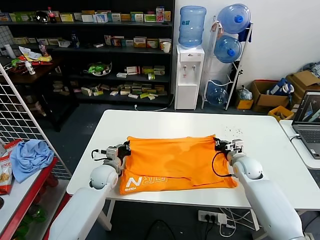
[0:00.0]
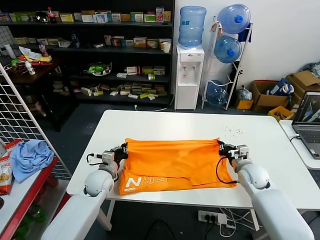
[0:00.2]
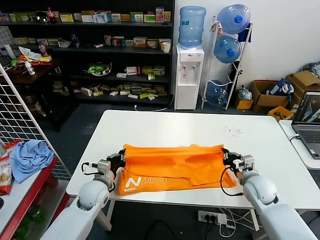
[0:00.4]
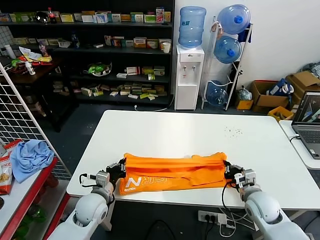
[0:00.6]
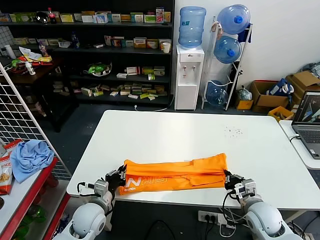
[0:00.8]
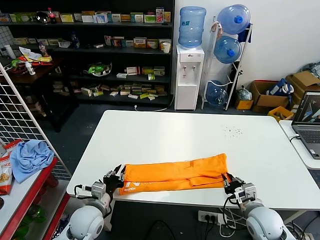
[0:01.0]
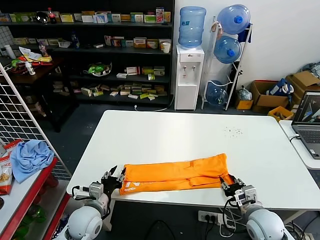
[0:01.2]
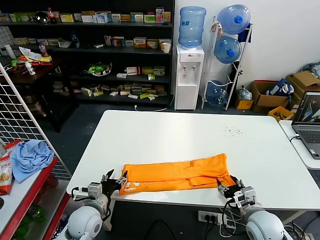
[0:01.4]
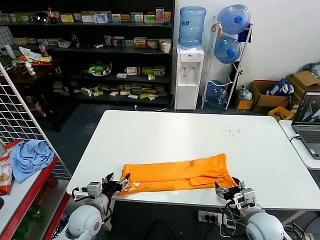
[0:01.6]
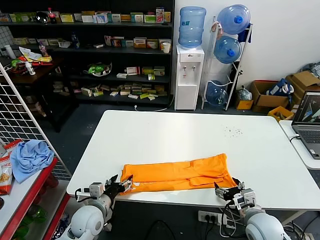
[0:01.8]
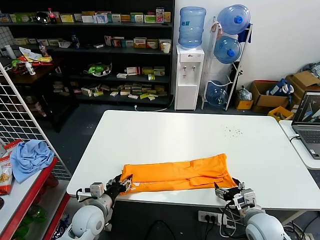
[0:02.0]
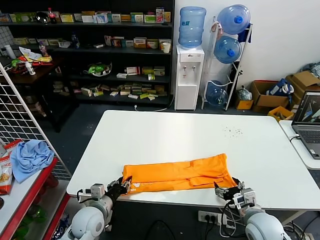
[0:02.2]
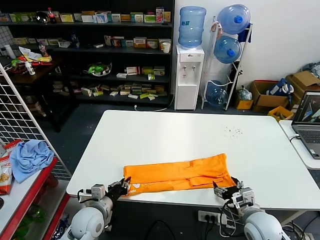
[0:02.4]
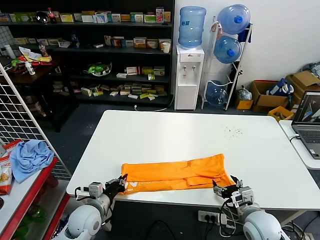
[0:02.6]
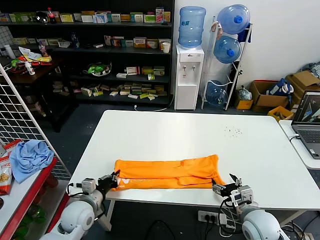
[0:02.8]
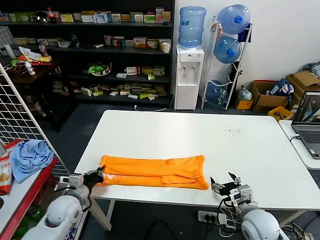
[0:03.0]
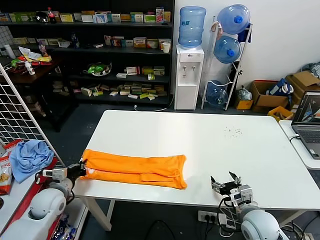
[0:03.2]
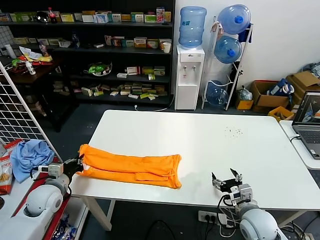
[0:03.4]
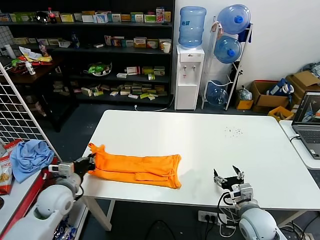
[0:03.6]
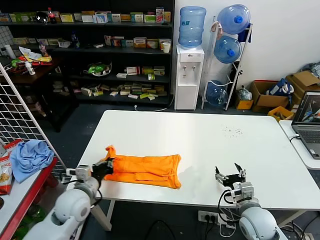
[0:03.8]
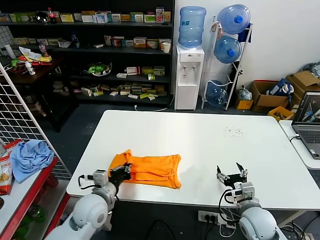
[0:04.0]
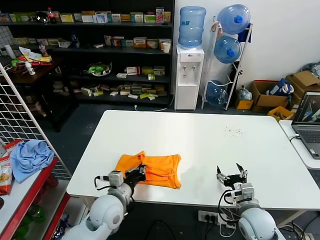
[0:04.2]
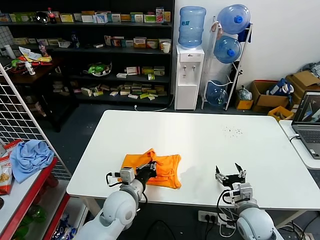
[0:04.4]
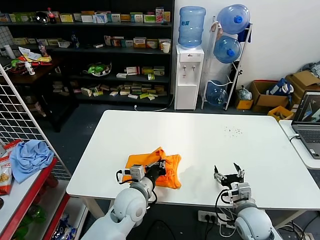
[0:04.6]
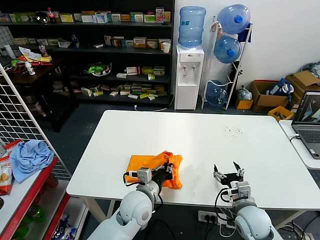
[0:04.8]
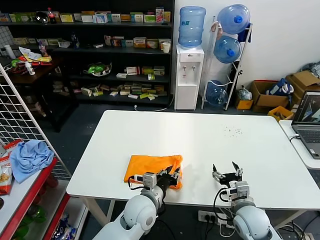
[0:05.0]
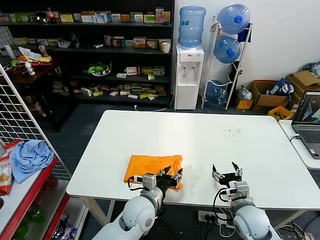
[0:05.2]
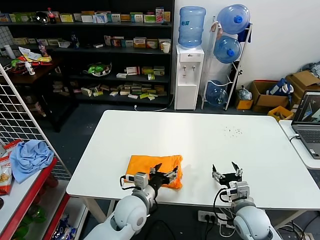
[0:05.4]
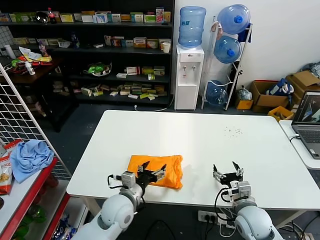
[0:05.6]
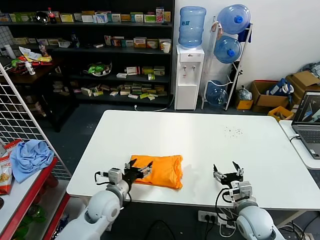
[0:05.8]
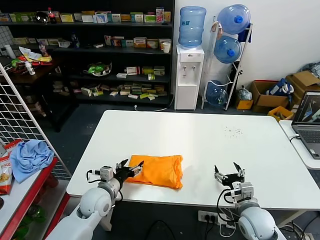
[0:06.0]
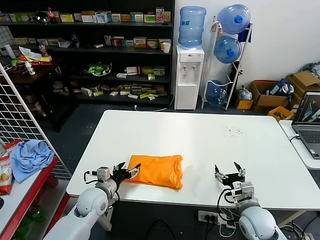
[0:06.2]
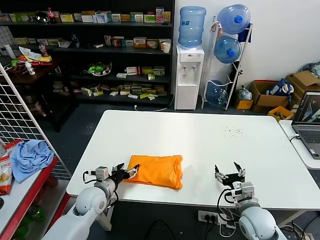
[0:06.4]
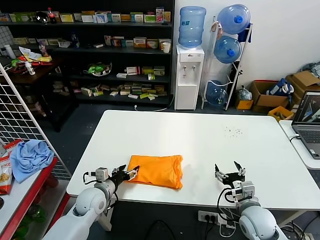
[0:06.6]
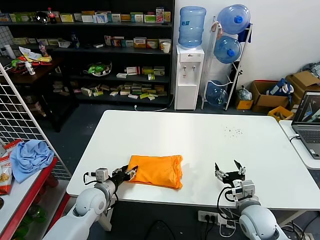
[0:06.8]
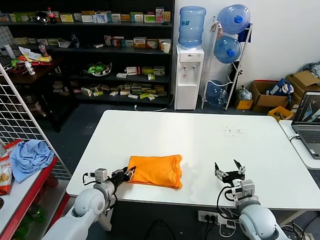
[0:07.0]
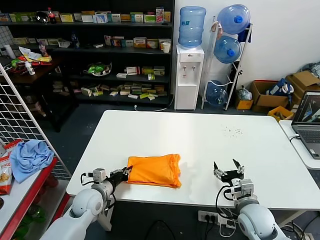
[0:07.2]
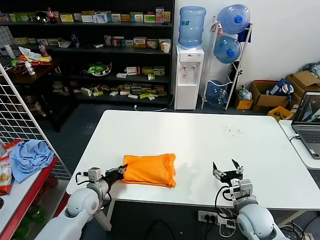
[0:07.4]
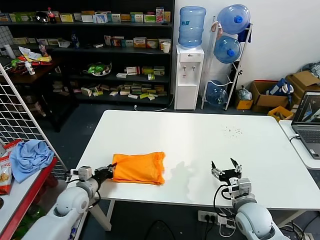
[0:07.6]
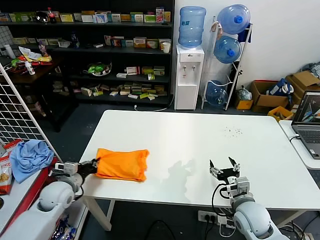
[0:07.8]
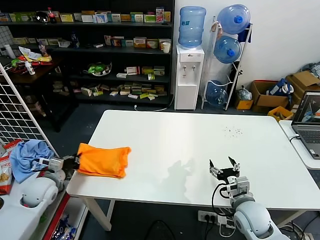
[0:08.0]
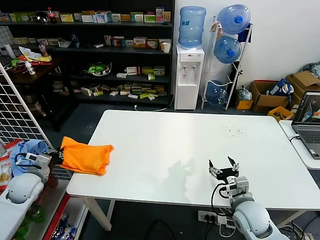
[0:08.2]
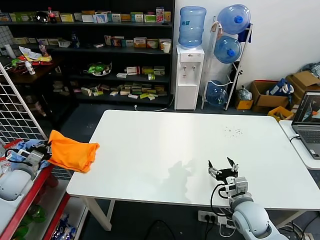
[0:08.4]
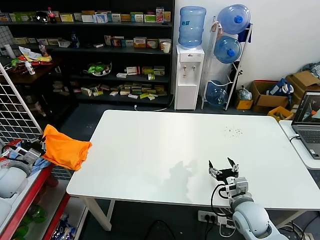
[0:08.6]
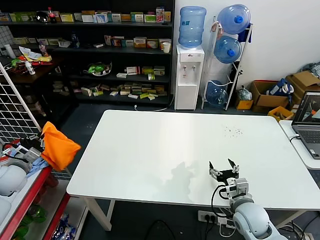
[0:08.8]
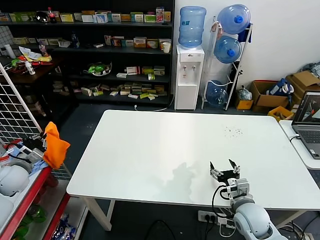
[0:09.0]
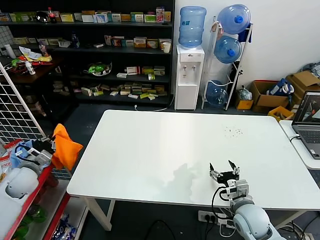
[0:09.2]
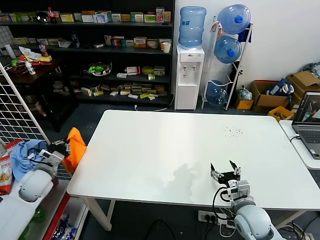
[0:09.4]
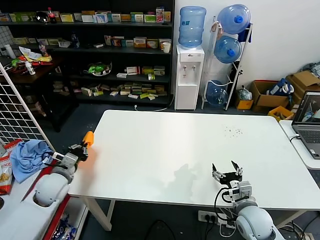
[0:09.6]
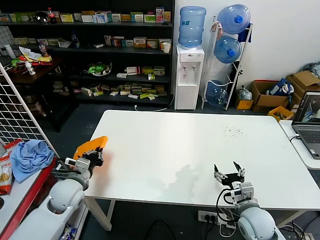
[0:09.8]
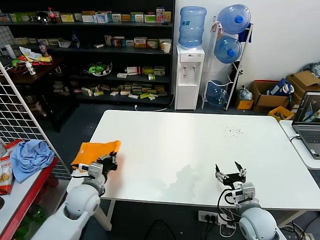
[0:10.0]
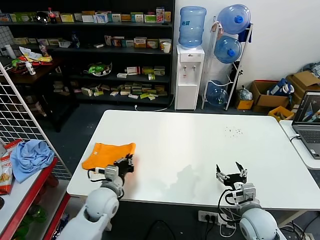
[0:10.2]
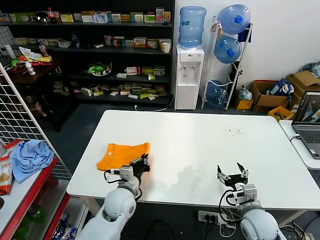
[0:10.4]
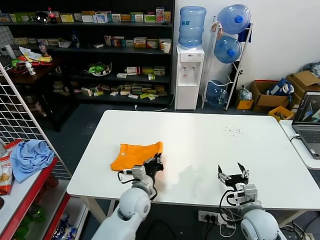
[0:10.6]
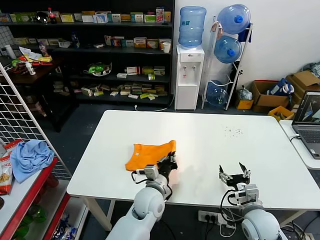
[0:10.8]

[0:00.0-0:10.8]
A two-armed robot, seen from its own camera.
Task of the whole recording: fold and organize the clothes.
Step, 0:00.0 to 0:01.4: use both grippers to drag the upper edge of the fabric backward and fold it over the lower edge.
Step, 0:01.6 to 0:02.6: use the left gripper to clamp the left edge of the fabric.
Step, 0:02.8 to 0:05.2: use the left gripper to drag the left edge of the fabric to the left and folds it over the right edge.
0:00.0 to 0:01.6: Both grippers move backward, roughly 20 cm. The right gripper opens up. Meanwhile the left gripper opens.
0:01.6 to 0:03.0: The left gripper moves to the left, about 5 cm, and closes up.
0:03.0 to 0:04.6: The left gripper shifts about 20 cm to the right.
0:04.6 to 0:06.2: The left gripper is displaced to the left by approximately 15 cm, and opens up.
0:06.2 to 0:07.8: The left gripper moves to the left, approximately 10 cm, and closes.
0:07.8 to 0:09.2: The left gripper travels to the left by about 15 cm.
0:09.2 to 0:10.8: The left gripper moves to the right, some 40 cm.

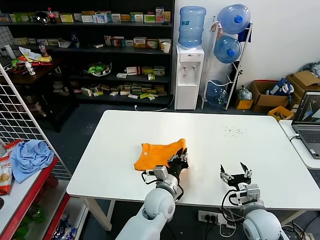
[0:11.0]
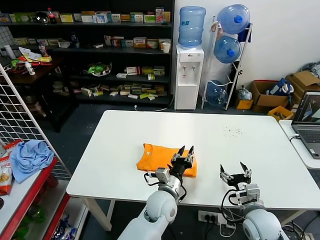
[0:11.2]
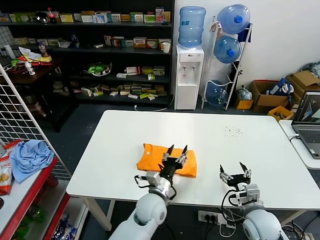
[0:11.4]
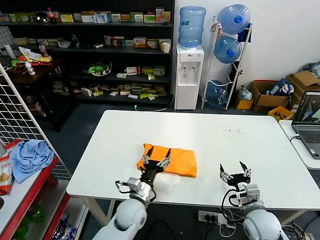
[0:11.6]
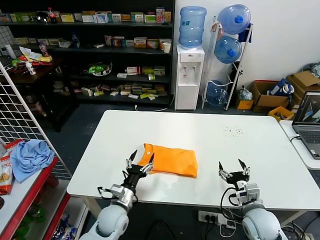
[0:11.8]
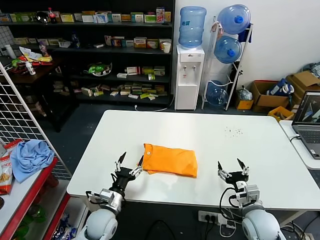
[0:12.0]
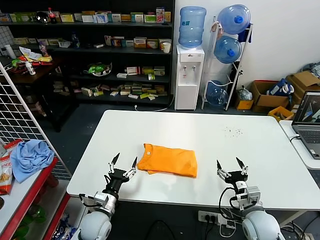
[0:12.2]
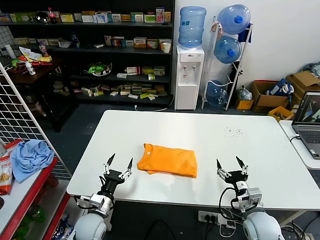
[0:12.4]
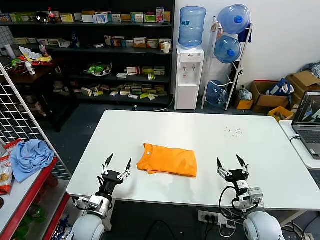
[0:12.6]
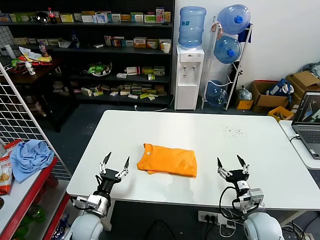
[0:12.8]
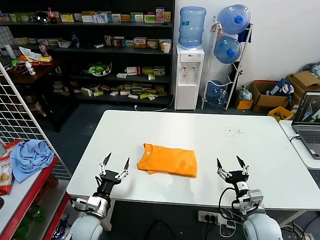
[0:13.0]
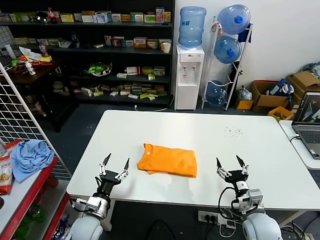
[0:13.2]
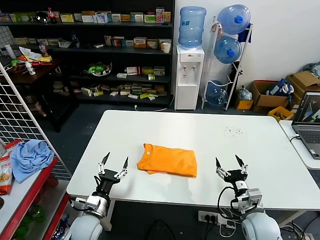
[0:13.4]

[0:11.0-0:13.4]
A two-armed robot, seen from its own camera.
Task of the whole recording: fold and organize the clothes.
0:11.0 to 0:12.2: The left gripper shifts about 20 cm to the left, and opens its fingers.
0:12.2 to 0:13.4: There are only small adjustments of the grippers.

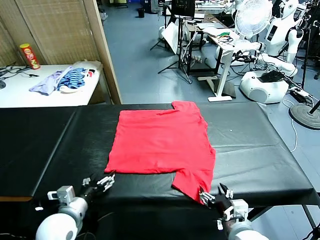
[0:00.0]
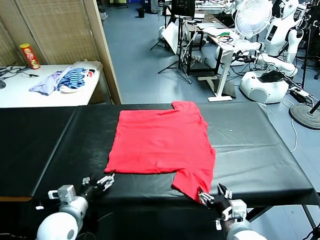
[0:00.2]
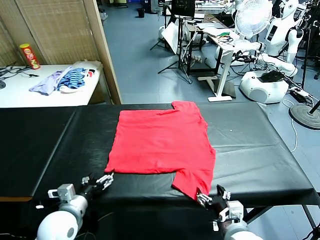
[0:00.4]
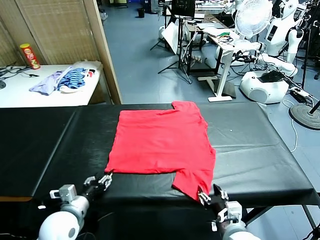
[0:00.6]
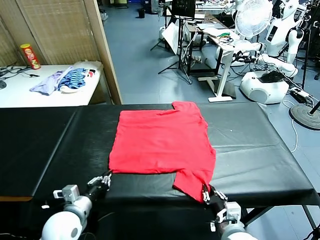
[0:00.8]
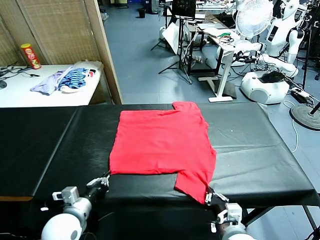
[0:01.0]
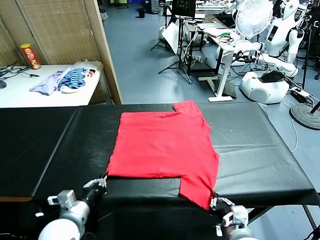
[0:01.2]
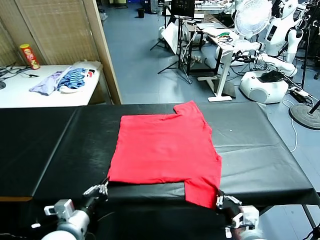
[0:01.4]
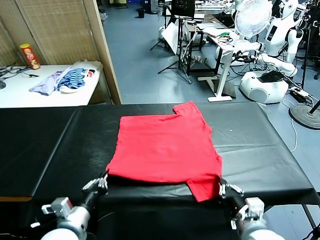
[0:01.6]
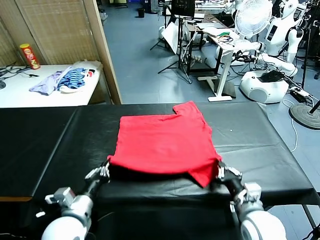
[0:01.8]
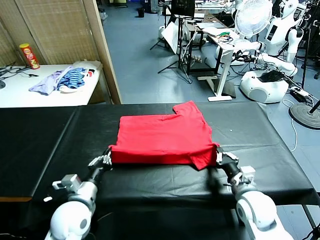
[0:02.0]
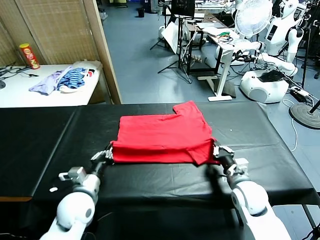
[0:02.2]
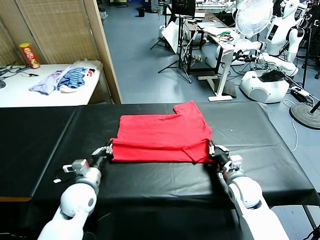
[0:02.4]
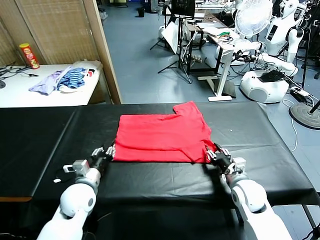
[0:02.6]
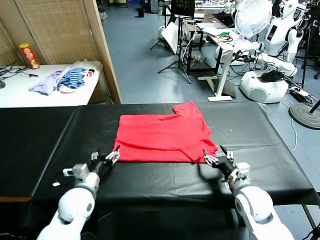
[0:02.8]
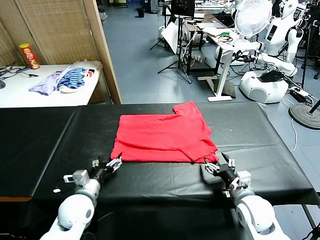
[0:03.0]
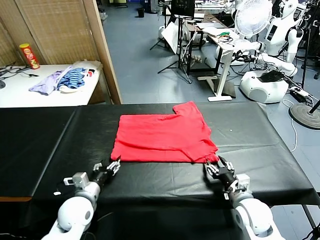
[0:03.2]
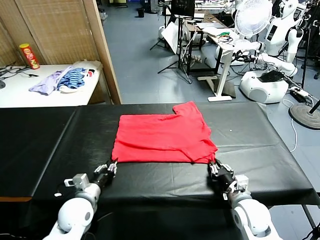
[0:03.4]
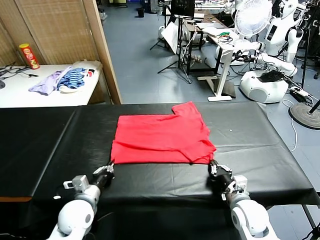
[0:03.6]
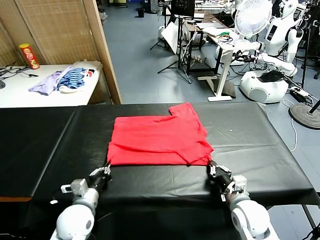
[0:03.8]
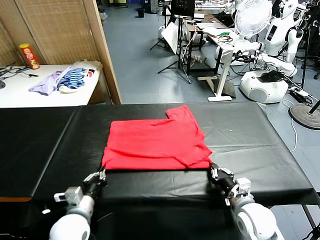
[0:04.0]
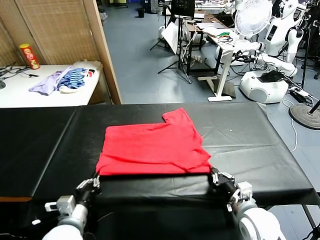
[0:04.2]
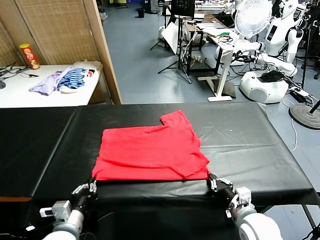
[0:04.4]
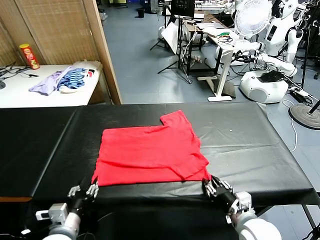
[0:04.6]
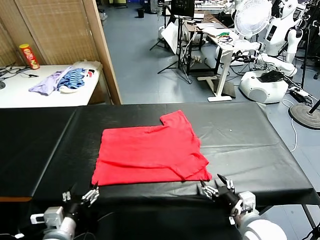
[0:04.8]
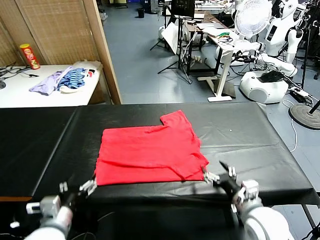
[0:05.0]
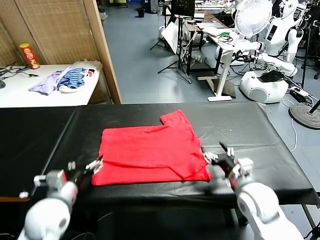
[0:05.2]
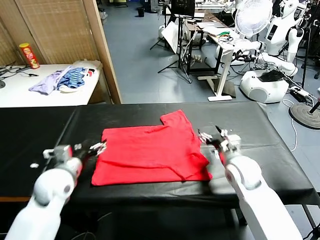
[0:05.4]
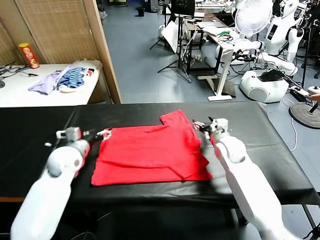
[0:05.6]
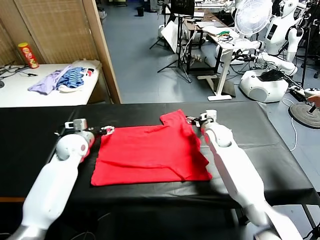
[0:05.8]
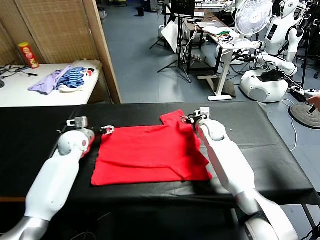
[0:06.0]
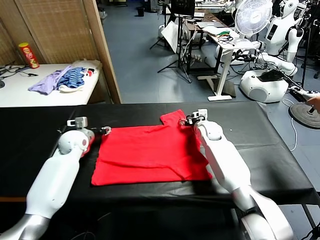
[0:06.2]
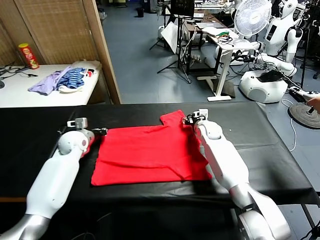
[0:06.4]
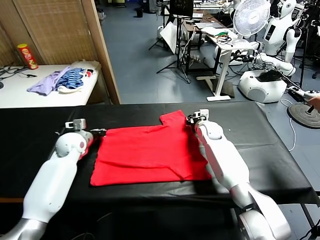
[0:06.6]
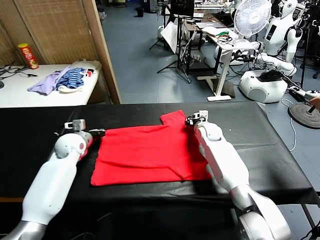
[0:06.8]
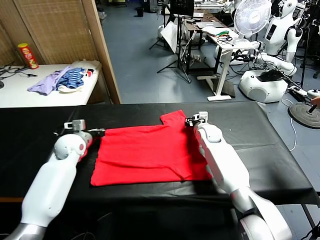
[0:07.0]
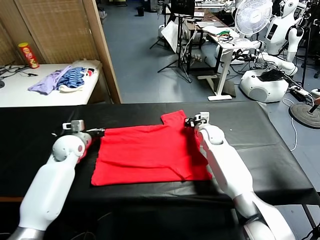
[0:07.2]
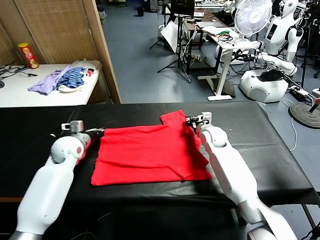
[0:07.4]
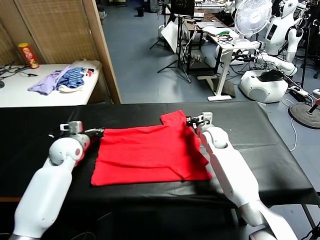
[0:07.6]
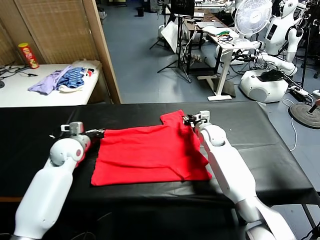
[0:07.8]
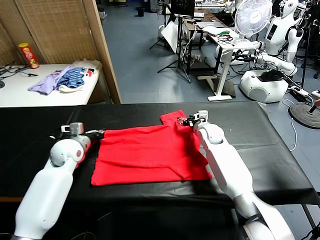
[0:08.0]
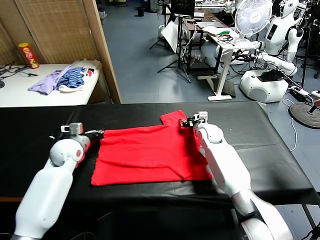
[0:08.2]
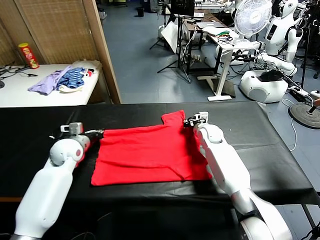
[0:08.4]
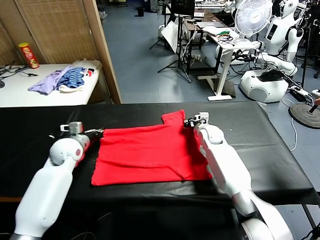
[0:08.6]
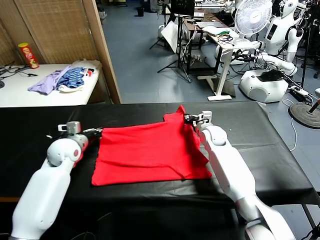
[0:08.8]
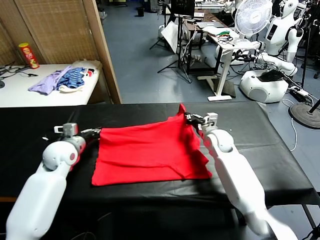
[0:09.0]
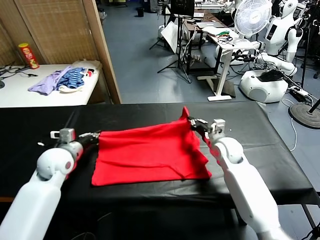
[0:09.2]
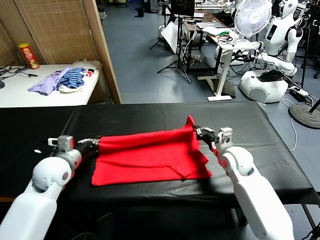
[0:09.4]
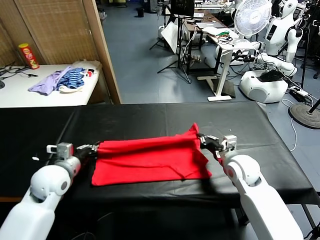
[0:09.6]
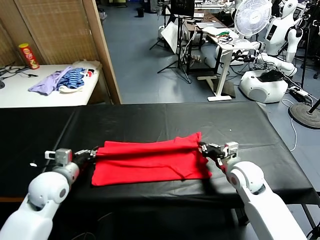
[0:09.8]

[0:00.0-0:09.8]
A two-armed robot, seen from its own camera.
Task of the whole recording: fold and organize the clothes.
Step, 0:00.0 to 0:01.4: use both grippers simultaneously to clamp the lower edge of the clothing fabric.
Step, 0:01.6 to 0:02.6: use both grippers to drag the lower edge of the fabric forward and fold it over the upper edge.
Step, 0:02.8 to 0:04.8: Drag the clothes downward with both gripper.
Step, 0:05.0 to 0:08.8: use both grippers simultaneously to clamp the upper edge of the clothing fabric.
0:01.4 to 0:02.8: The right gripper goes roughly 10 cm forward and downward, and opens up. Meanwhile the left gripper moves forward, approximately 10 cm, and opens its fingers.
0:02.8 to 0:04.2: The left gripper moves backward, approximately 10 cm, and closes its fingers; the right gripper is displaced backward by some 5 cm, and closes its fingers.
0:04.2 to 0:05.6: The two grippers go some 25 cm forward. The left gripper opens up; the right gripper opens.
0:05.6 to 0:07.0: The left gripper travels forward by about 5 cm, and closes up; the right gripper closes.
0:07.0 to 0:08.4: The right gripper opens and closes again.
0:08.4 to 0:09.8: The right gripper goes about 20 cm backward. Meanwhile the left gripper goes roughly 15 cm backward.
